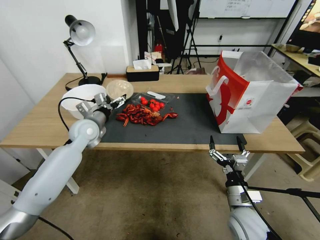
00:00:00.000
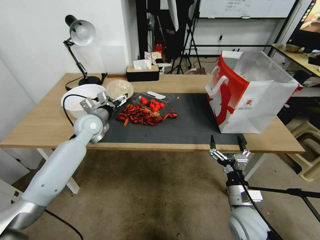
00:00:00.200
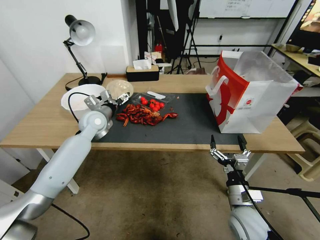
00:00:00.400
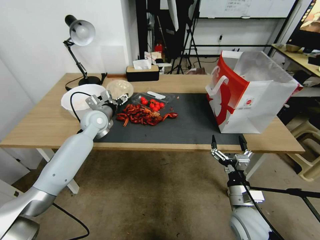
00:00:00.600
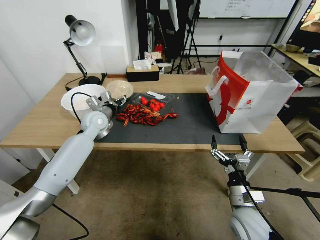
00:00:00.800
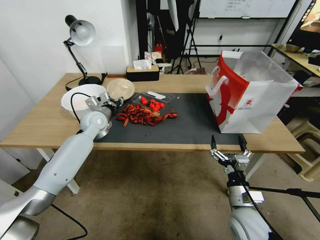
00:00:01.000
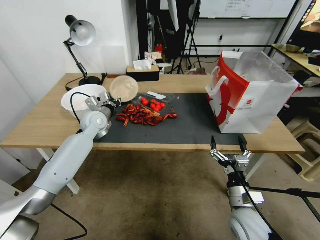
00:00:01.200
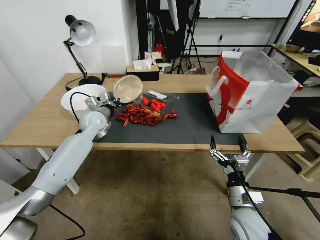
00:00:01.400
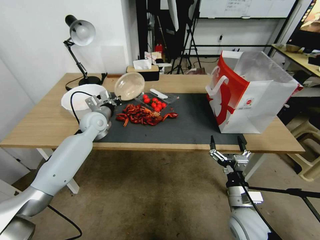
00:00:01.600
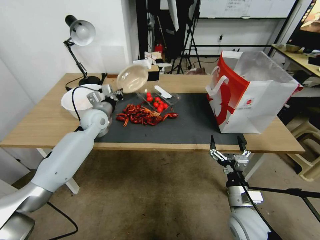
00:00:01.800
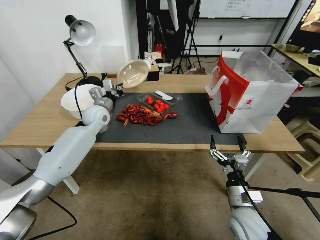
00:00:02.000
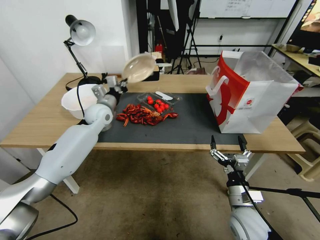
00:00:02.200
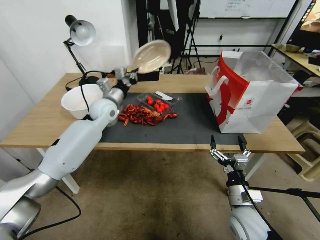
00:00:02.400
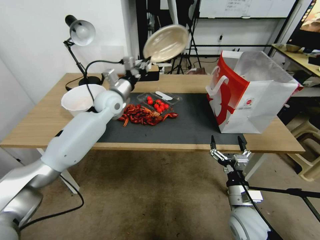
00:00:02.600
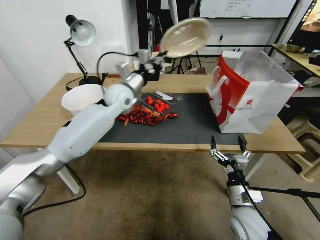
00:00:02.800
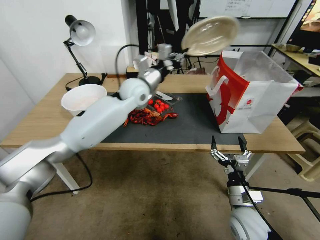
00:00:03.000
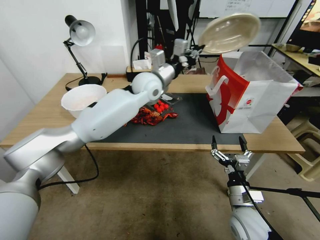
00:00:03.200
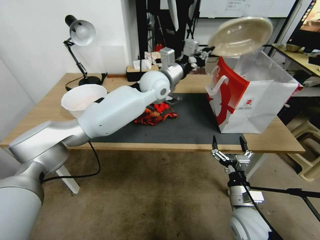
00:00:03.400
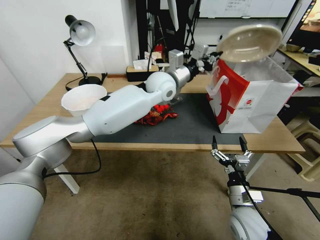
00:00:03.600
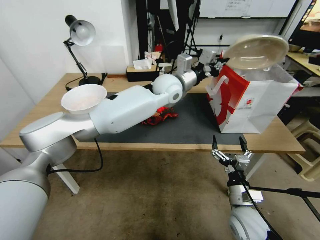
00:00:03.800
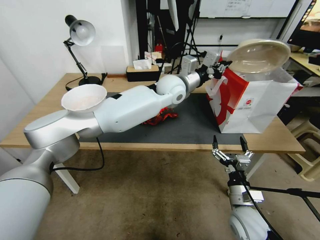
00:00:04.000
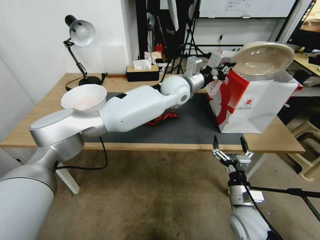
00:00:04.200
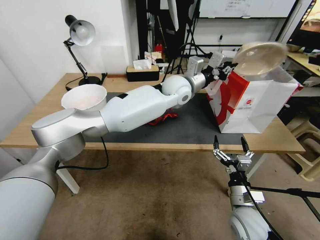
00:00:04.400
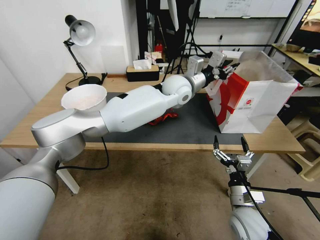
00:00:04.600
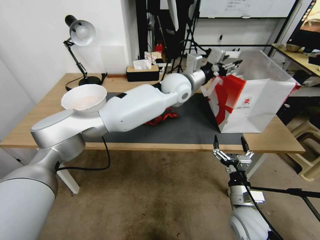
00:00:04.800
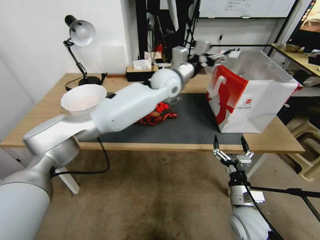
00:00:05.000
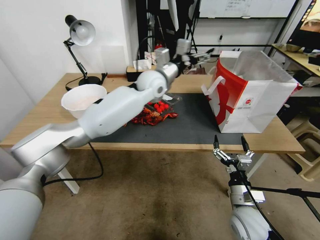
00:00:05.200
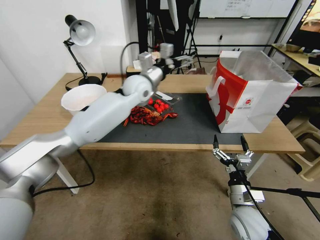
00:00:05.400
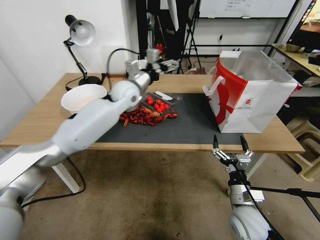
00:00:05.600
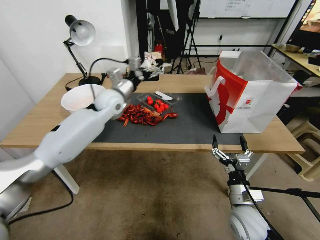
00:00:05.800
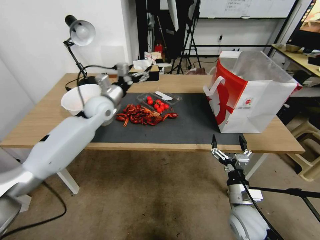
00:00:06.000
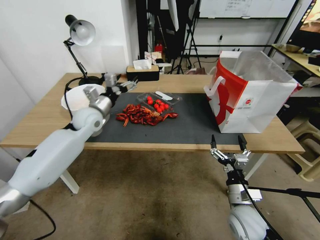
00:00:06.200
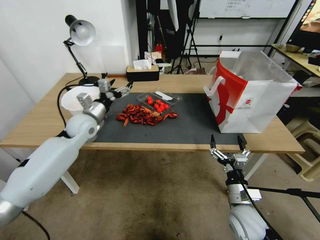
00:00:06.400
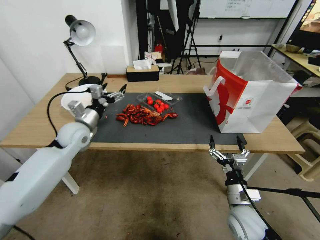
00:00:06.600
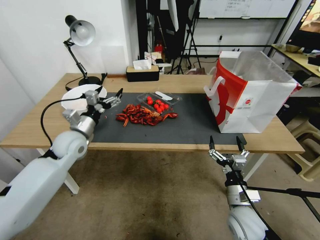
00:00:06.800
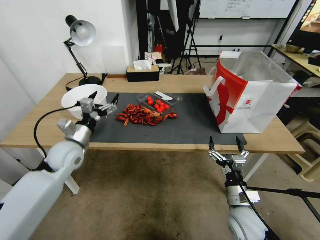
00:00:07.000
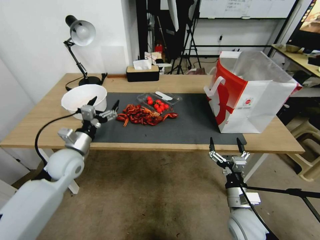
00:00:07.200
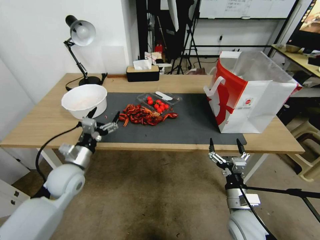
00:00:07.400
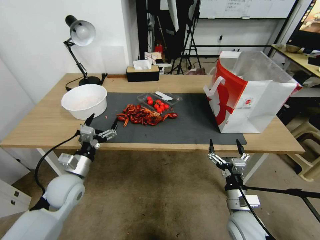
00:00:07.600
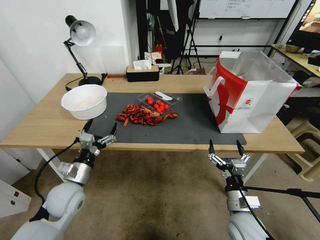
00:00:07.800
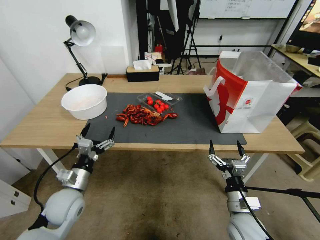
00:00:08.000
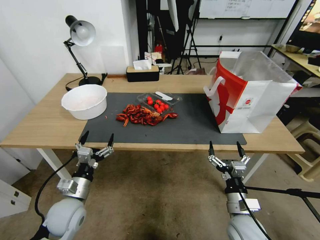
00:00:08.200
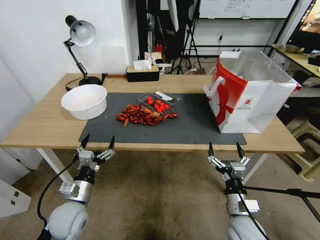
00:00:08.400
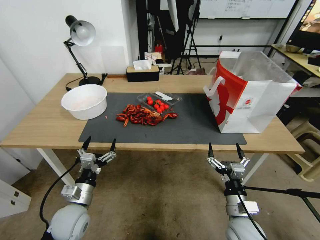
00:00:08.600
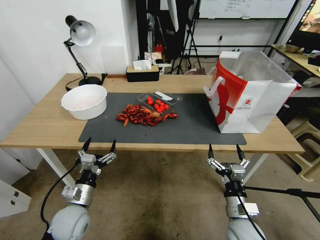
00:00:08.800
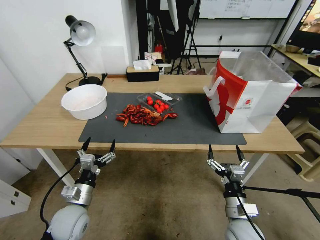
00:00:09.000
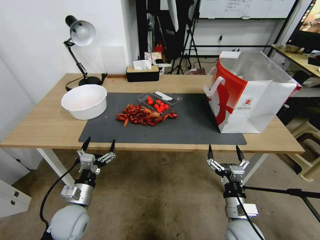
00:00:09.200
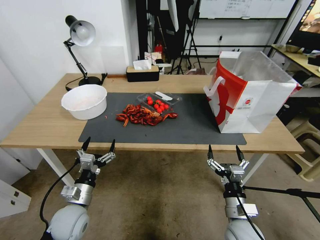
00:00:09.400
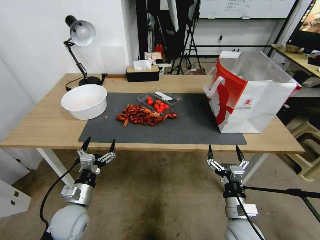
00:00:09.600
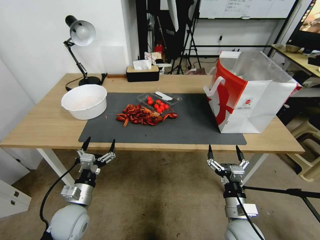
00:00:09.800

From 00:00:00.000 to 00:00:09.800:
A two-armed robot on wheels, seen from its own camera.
From 00:00:00.000 to 00:00:01.400: The left gripper travels forward by some 5 cm, and closes up.
From 00:00:01.400 to 00:00:02.800: The left gripper is displaced to the right and upward by some 15 cm.
From 00:00:02.800 to 00:00:04.200: The left gripper shifts about 20 cm to the right.
From 00:00:04.200 to 00:00:05.600: The left gripper heads to the left, covering some 20 cm, and opens its fingers.
From 00:00:05.600 to 00:00:07.000: The left gripper shifts some 25 cm backward, to the left and downward.
From 00:00:07.000 to 00:00:08.400: The left gripper travels backward and downward by roughly 20 cm.
From 00:00:08.400 to 00:00:09.800: The grippers make only small movements.
